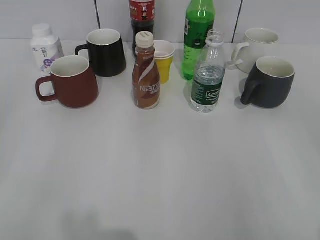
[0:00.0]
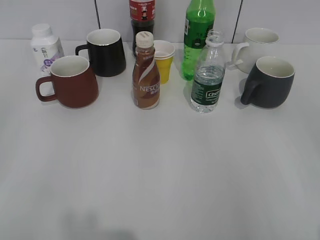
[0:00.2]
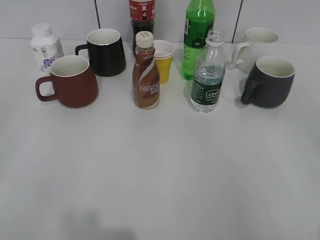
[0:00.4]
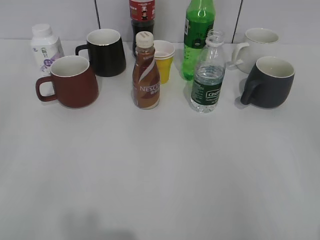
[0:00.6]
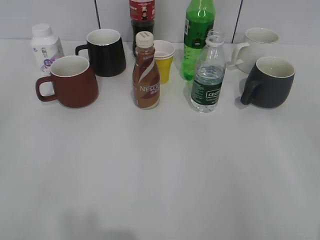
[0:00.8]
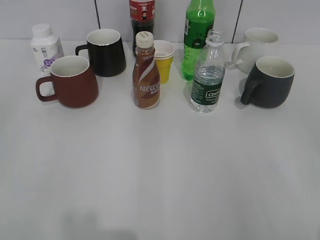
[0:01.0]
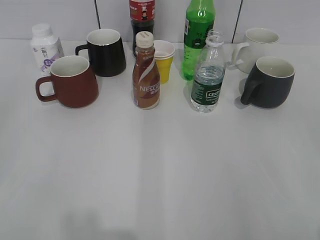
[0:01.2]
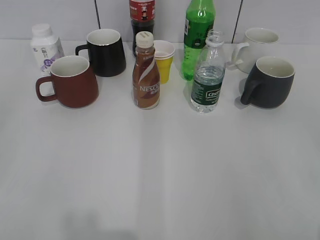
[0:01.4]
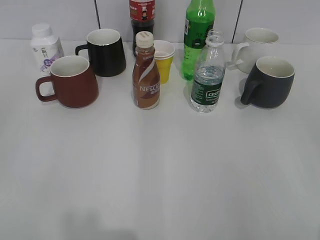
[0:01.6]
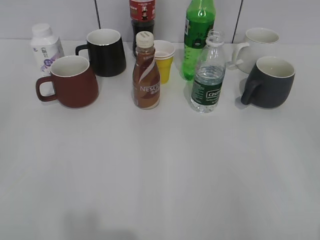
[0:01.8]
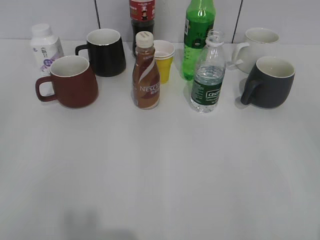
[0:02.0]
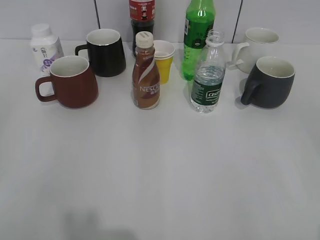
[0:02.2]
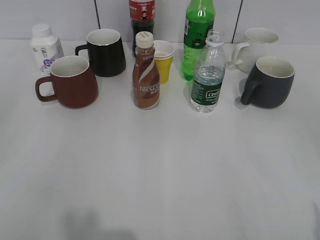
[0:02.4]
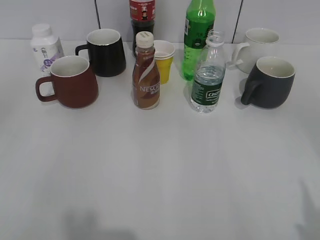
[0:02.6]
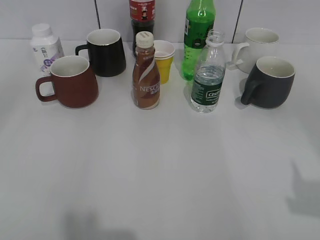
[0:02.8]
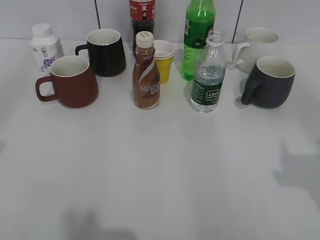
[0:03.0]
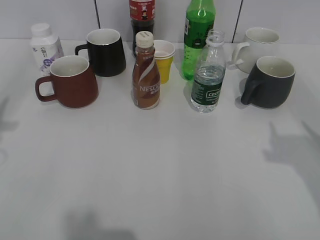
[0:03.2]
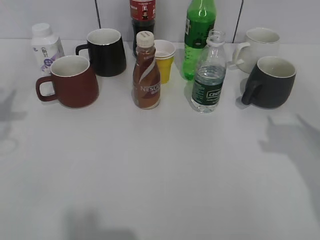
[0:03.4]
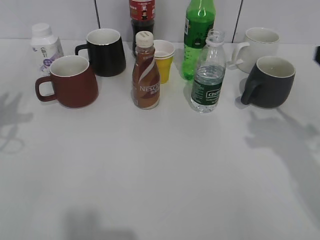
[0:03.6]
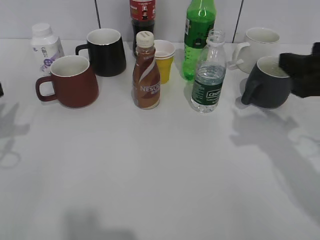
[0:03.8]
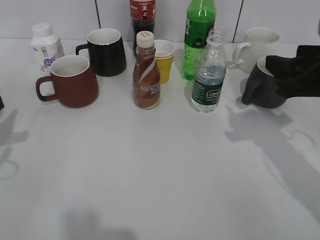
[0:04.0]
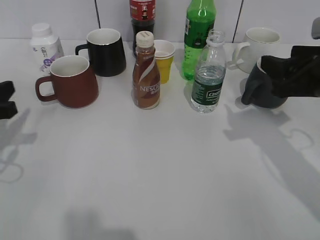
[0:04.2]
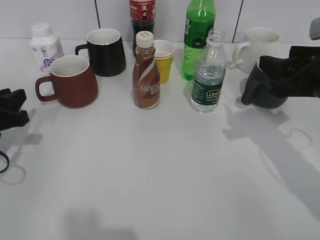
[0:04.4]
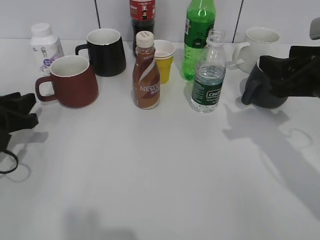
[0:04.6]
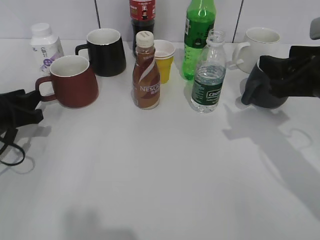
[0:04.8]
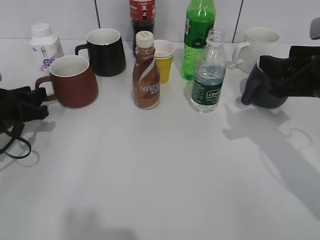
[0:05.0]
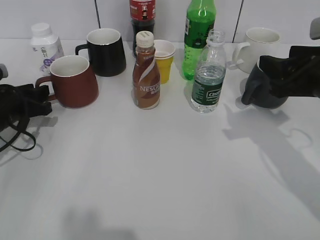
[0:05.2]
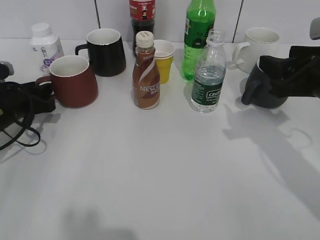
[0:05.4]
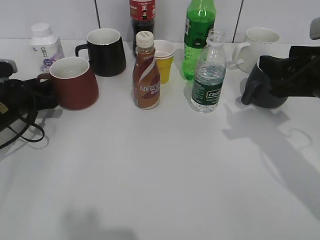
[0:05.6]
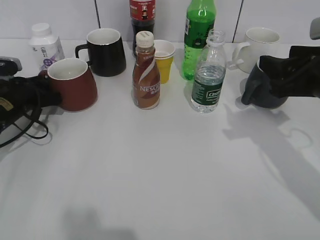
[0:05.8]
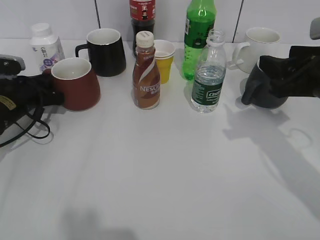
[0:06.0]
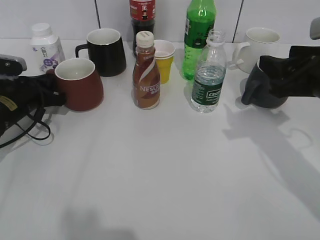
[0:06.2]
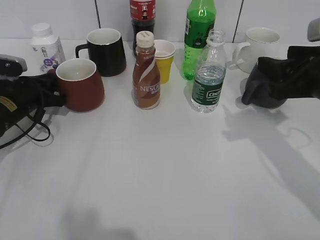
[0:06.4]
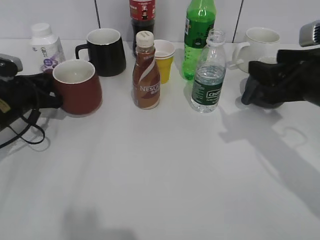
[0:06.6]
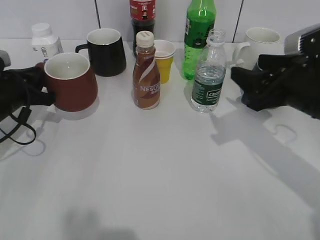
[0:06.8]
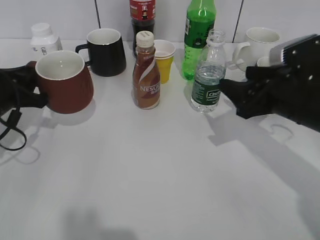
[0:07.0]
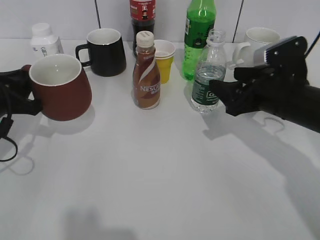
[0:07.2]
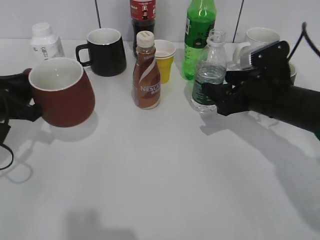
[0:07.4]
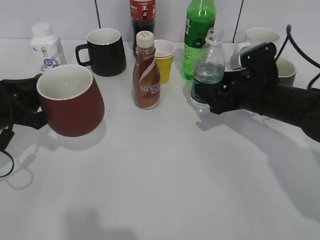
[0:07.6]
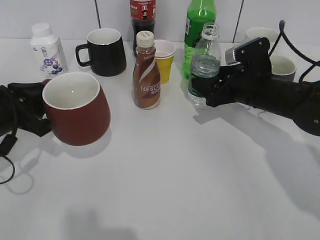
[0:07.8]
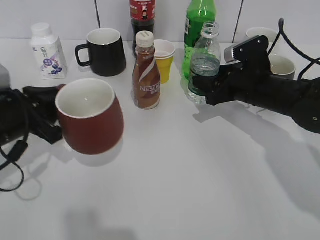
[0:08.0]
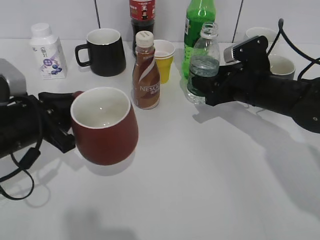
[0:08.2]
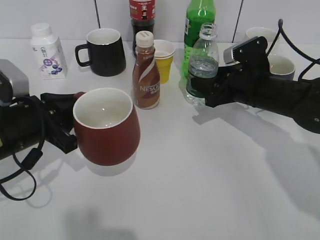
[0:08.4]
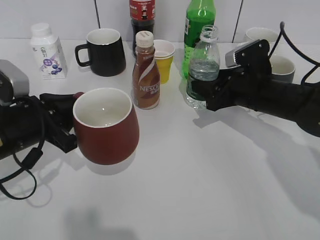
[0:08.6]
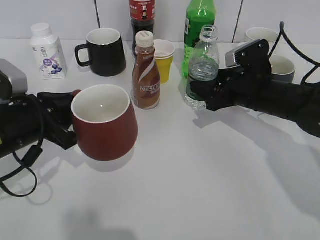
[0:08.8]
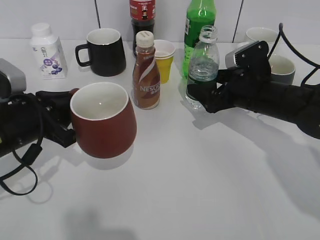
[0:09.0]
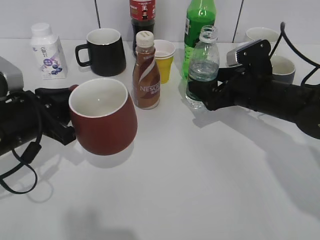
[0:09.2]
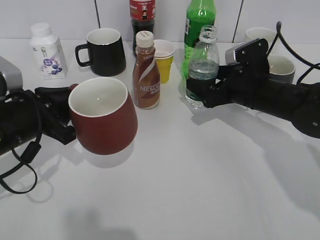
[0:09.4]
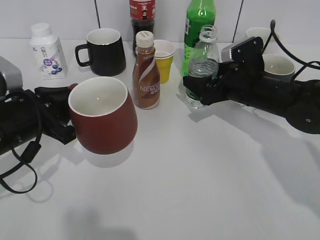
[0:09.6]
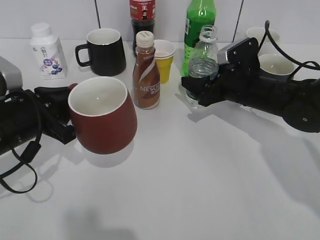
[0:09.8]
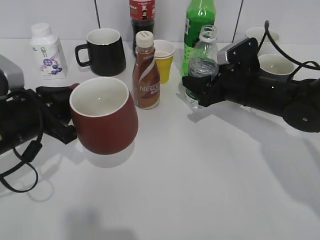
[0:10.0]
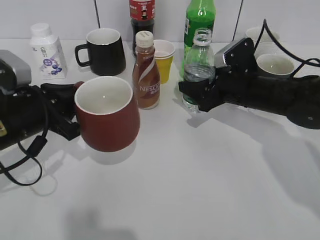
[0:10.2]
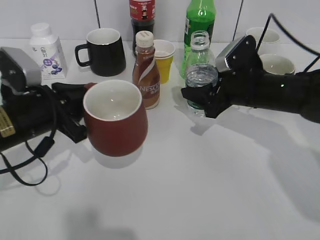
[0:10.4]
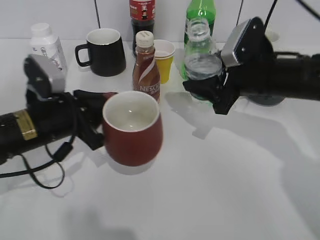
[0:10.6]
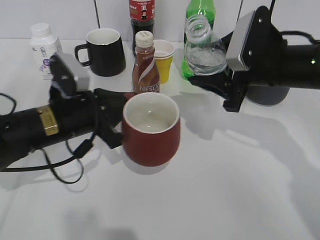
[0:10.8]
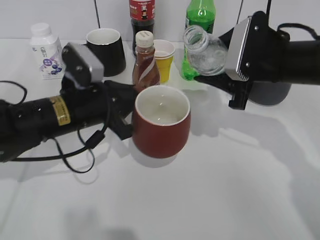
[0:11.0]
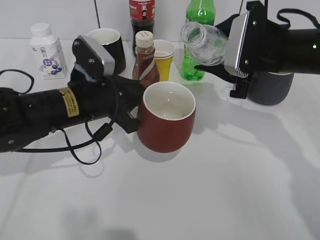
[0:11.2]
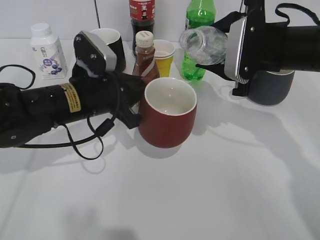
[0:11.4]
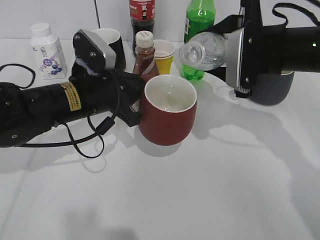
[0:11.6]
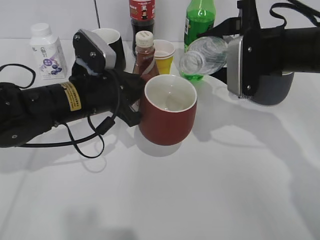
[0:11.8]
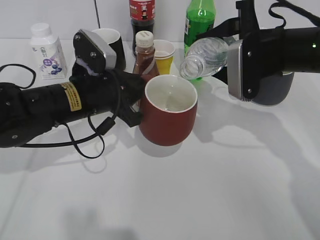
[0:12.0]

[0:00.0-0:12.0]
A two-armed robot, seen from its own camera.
Step, 2.2 to 6.0 s: Grasp the red cup with left gripper.
Step, 6.4 to 7.0 s: Lift the red cup with left gripper.
Step, 7.2 to 10.0 s: Grasp the bottle with water with right gripper.
1.6 to 3.0 s: The left gripper shifts about 15 cm forward.
3.0 to 4.4 s: The right gripper moves forward, downward and to the left, about 20 cm, and closes up, while the left gripper moves downward and forward, roughly 20 cm.
4.4 to 6.0 s: The left gripper heads forward, covering roughly 10 cm, and closes its fingers.
6.0 to 7.6 s: The left gripper moves backward and upward, approximately 10 cm; the right gripper heads downward, forward and to the left, covering roughly 15 cm, and opens up.
7.6 to 9.0 s: The right gripper opens up. The left gripper shifts by roughly 5 cm.
9.0 to 10.4 s: The right gripper closes.
10.4 to 12.0 s: The right gripper goes about 10 cm upward. The left gripper heads to the right, covering approximately 10 cm.

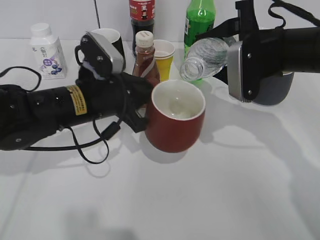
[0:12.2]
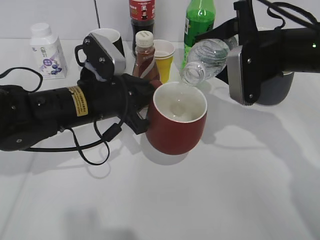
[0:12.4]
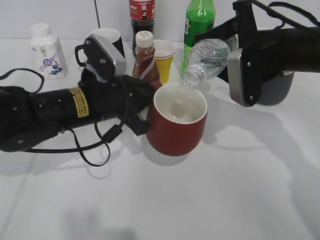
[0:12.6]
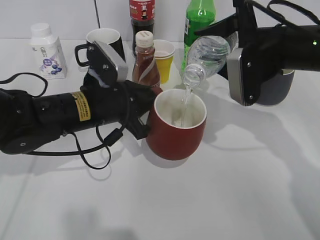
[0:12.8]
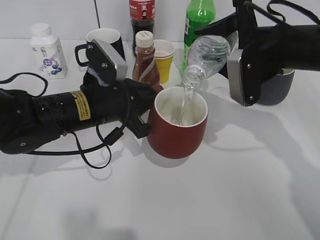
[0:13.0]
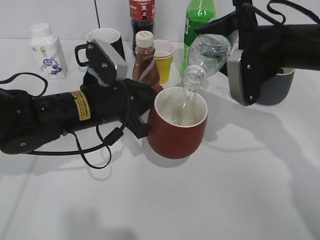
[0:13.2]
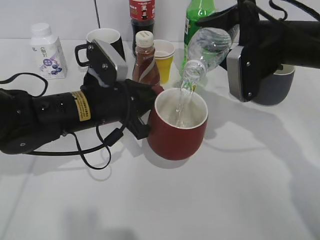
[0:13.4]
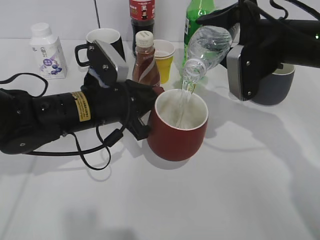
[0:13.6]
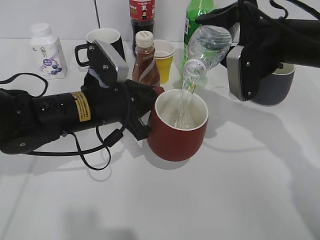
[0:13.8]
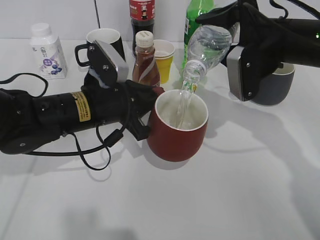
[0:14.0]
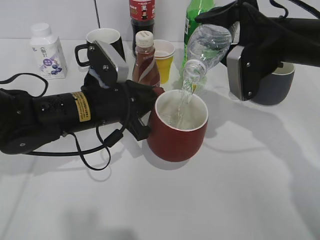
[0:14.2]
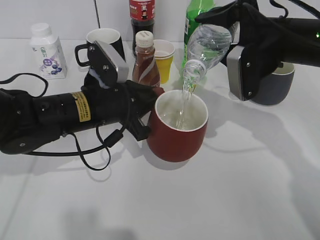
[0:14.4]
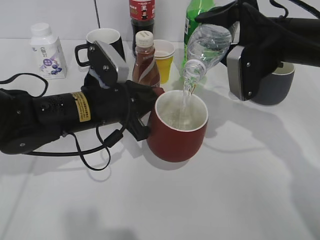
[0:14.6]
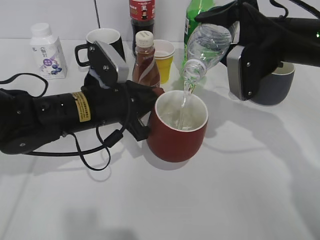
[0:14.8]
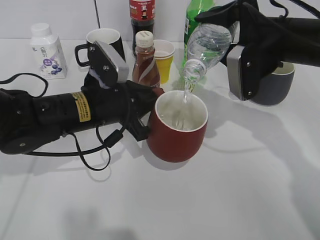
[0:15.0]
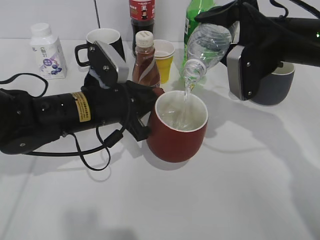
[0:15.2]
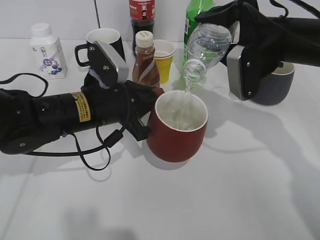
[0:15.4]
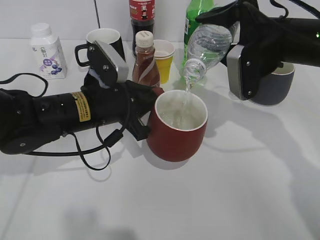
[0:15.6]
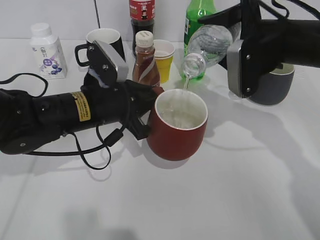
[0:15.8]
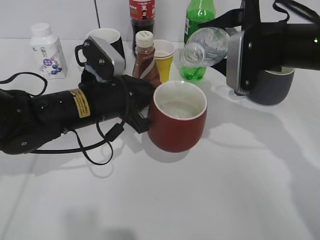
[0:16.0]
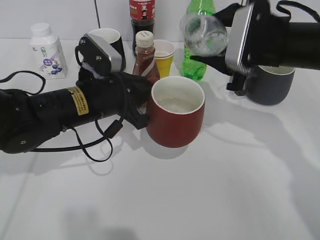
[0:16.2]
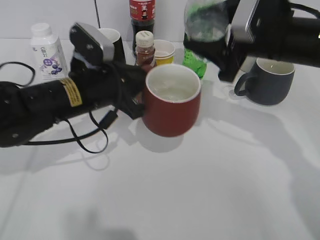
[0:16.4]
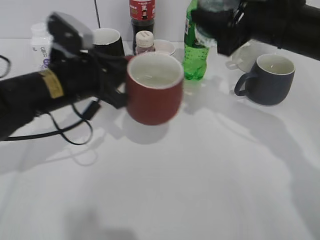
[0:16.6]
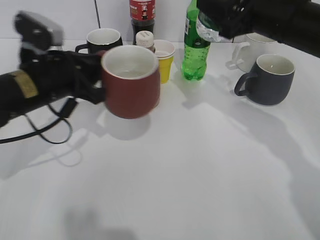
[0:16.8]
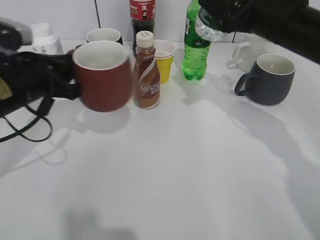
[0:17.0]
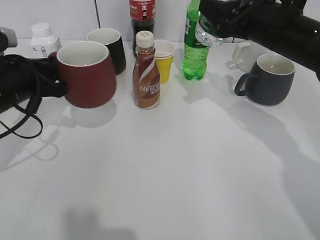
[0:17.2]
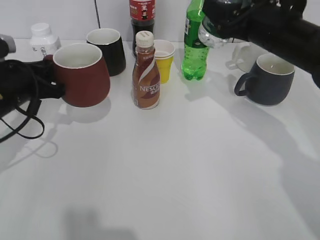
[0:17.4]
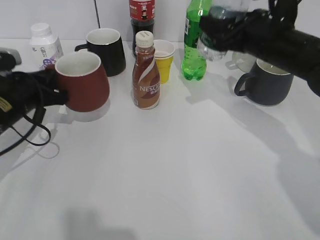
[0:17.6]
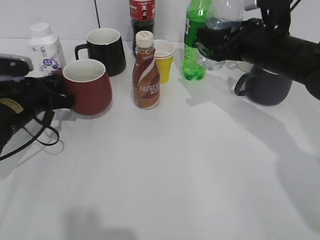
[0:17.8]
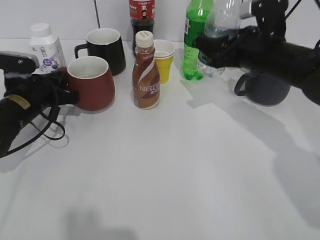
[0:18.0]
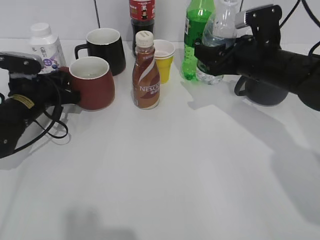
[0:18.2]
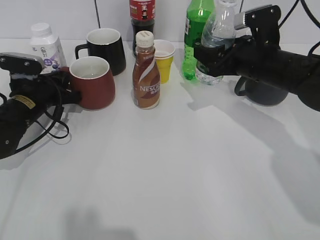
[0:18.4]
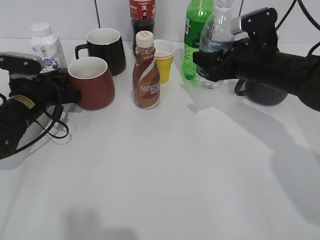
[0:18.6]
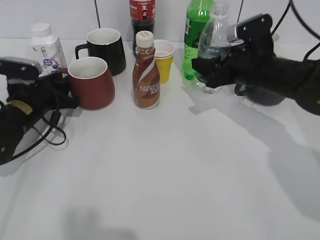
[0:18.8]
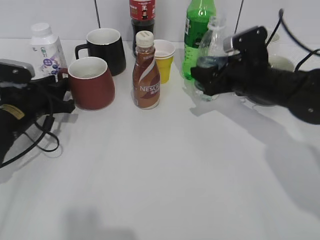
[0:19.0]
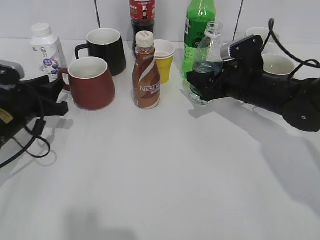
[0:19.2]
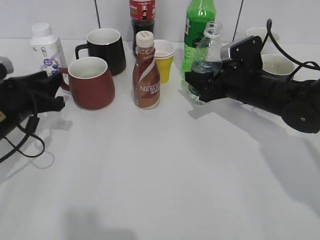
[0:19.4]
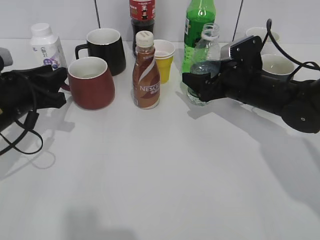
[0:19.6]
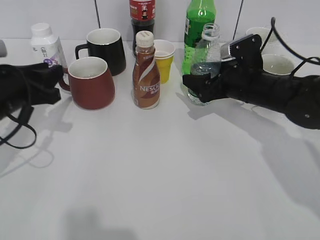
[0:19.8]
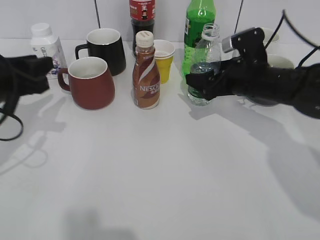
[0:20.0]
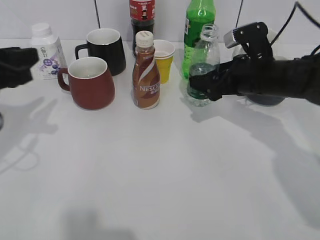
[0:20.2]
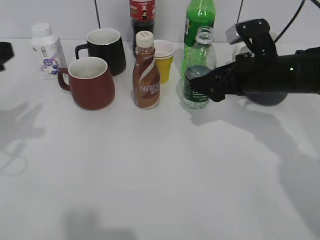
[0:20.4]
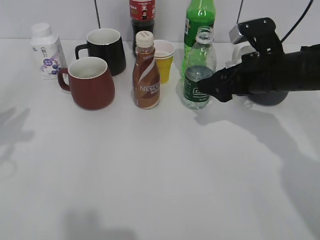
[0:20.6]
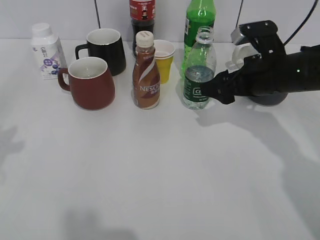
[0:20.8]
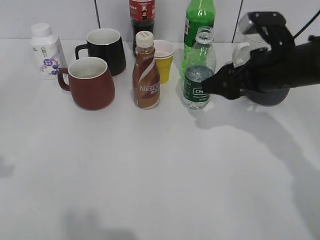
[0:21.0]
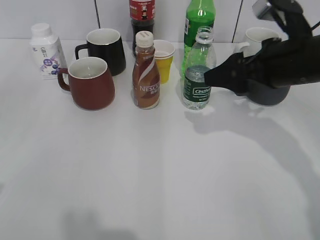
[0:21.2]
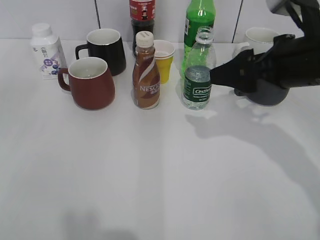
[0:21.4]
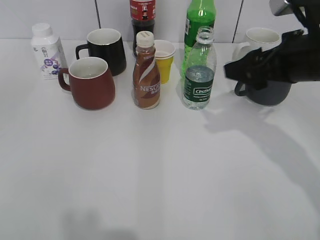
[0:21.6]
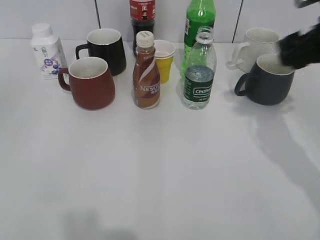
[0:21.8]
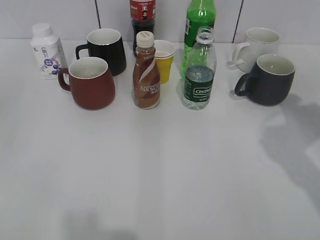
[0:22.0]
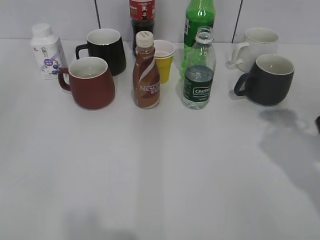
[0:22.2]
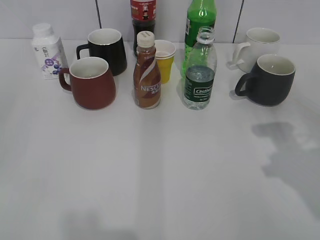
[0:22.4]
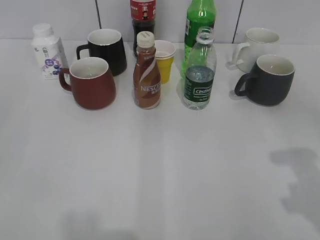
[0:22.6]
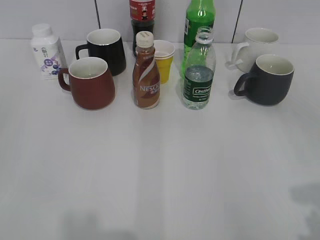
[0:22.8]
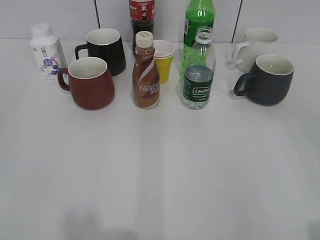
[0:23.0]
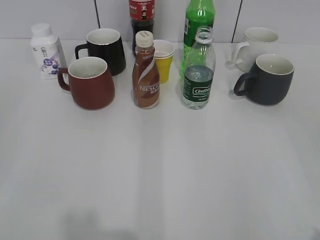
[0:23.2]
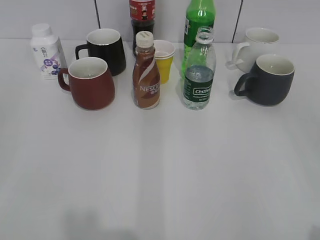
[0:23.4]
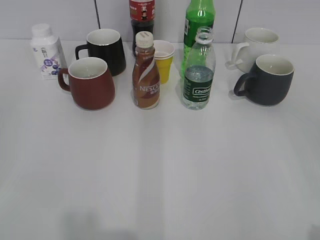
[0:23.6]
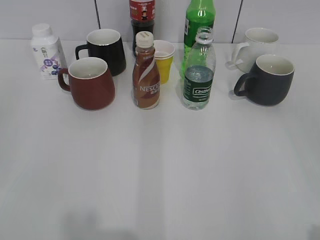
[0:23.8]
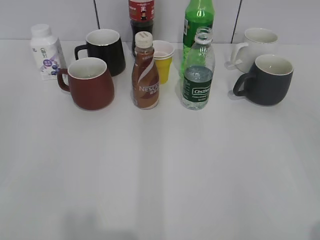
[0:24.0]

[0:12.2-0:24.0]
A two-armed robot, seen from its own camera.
Step, 12.2 to 16.0 s: Pour the water from bottle to cup with right gripper.
Step, 16.2 to 18.8 s: Place the red cup on the table with left gripper.
Step, 19.0 to 20.4 s: Place the water bottle on the table with right gripper.
12.2 to 13.6 s: The grippers stay close to where they were, moving slightly.
13.6 to 15.2 s: Both grippers stay about where they are.
15.2 to 16.6 s: The left gripper moves about 5 cm.
16.6 to 18.2 s: The left gripper is displaced to the left, downward and forward by approximately 15 cm; the right gripper is displaced downward by roughly 10 cm.
18.2 to 19.6 s: The right gripper goes roughly 5 cm downward, and opens its fingers. Meanwhile the left gripper shifts roughly 5 cm backward, and opens up.
19.6 to 21.0 s: The left gripper travels upward and backward by approximately 20 cm; the right gripper goes roughly 10 cm upward and backward.
21.0 to 22.6 s: The left gripper is displaced backward by about 15 cm. Meanwhile the right gripper moves backward, to the right and upward, about 20 cm, and closes up.
22.6 to 24.0 s: The right gripper heads backward, covering about 15 cm.
